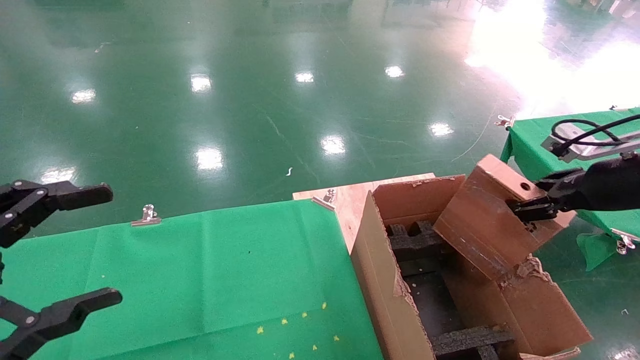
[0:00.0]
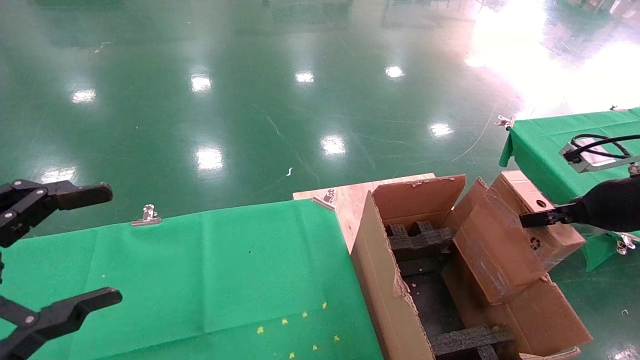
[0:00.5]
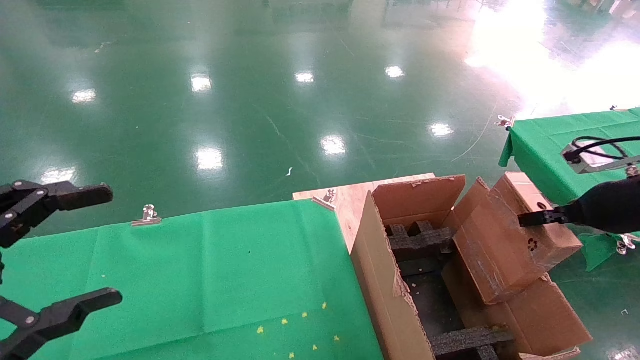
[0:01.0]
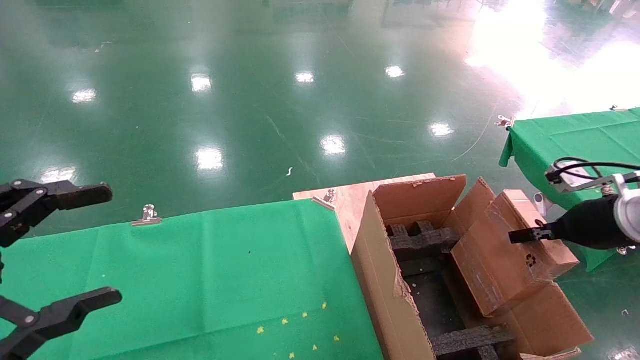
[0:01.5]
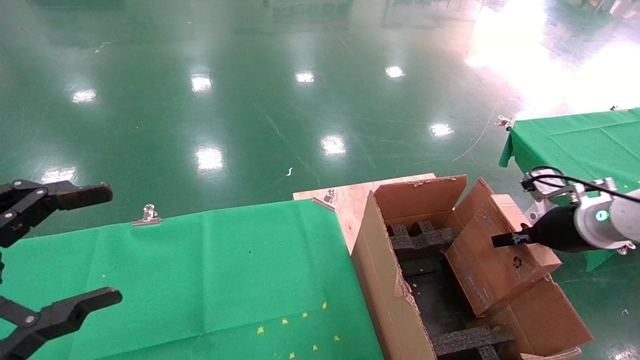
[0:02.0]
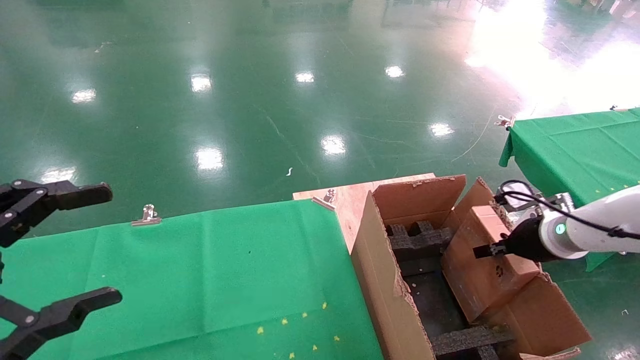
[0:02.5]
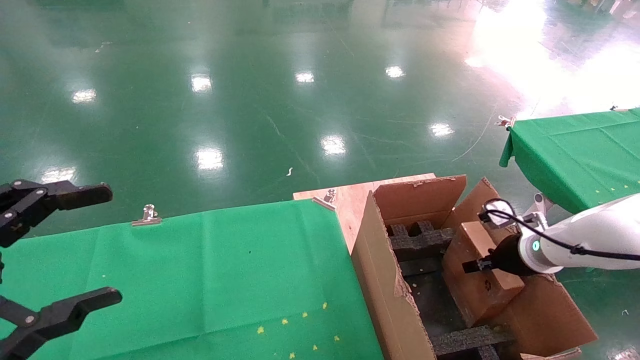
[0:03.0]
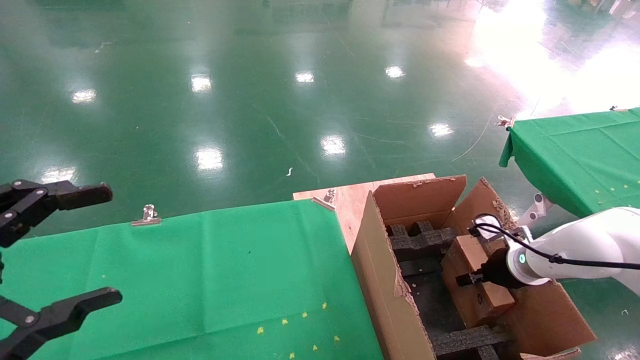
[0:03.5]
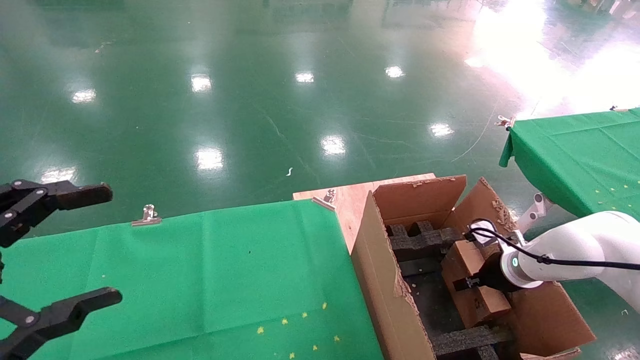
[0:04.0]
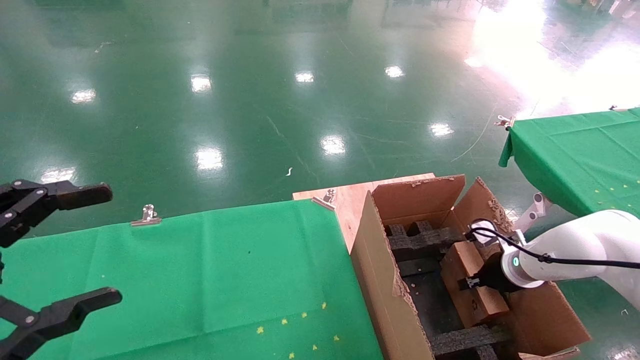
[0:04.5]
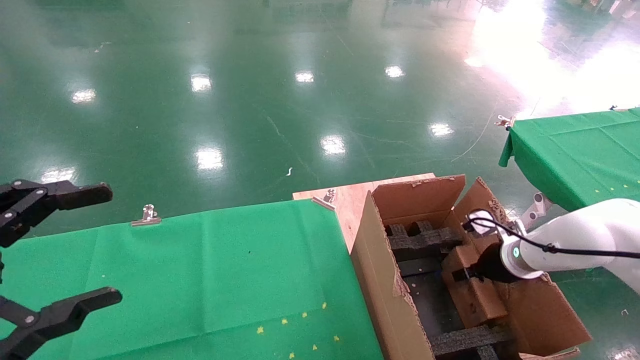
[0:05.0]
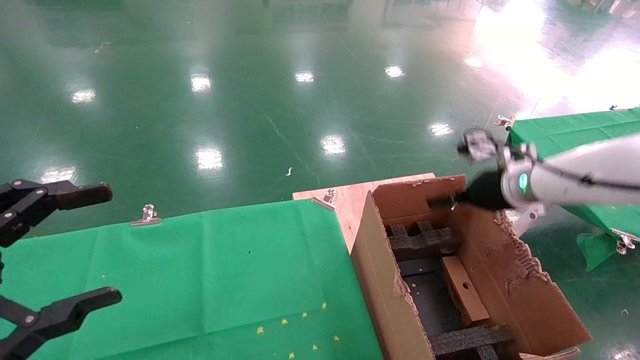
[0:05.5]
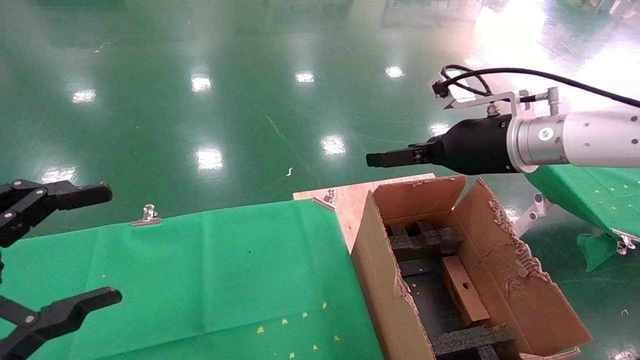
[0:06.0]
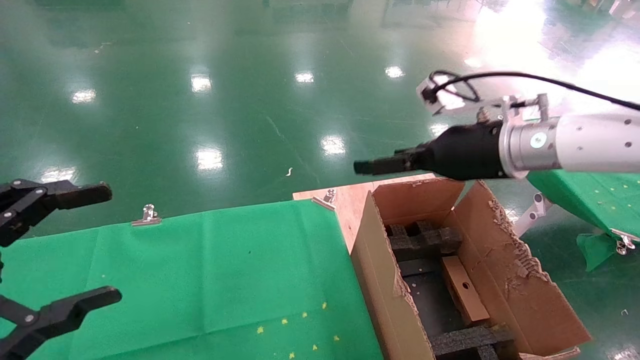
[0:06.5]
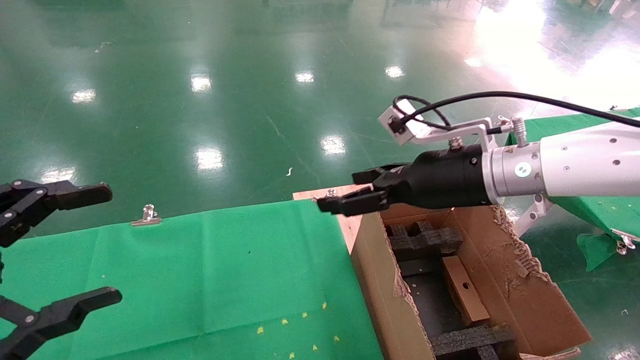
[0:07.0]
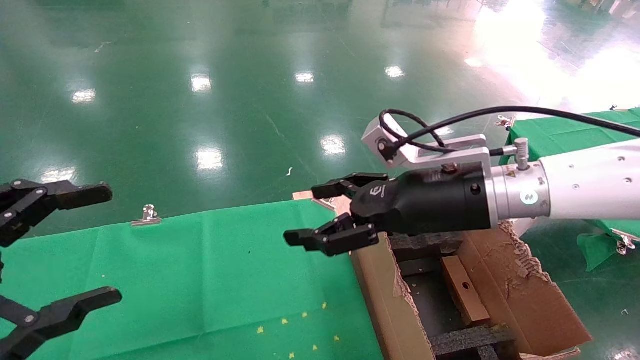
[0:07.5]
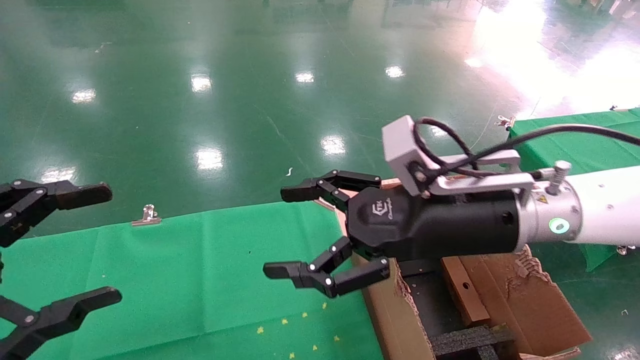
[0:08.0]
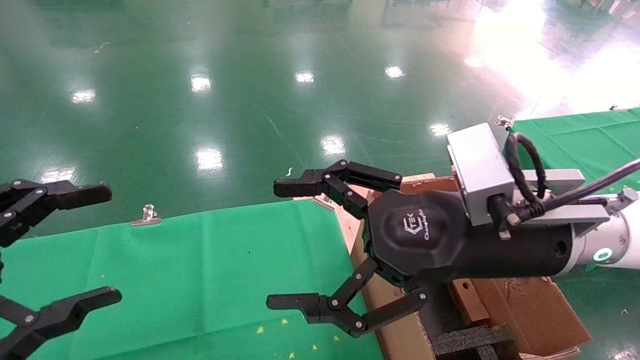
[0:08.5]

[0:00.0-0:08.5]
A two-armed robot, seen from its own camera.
Task of the whole recording: using a robotic arm to pick up a cardboard box and palace it the carton.
Step, 0:00.0 to 0:05.5: Place the mouse and the power cord paper box into the container.
0:00.0 to 0:02.0: The right gripper is displaced downward by some 10 cm.
0:02.0 to 0:04.0: The right gripper goes some 15 cm downward and forward.
0:04.0 to 0:06.5: The right gripper travels upward and to the left by approximately 25 cm, and opens its fingers.
0:06.5 to 0:08.5: The right gripper heads backward and to the left, covering roughly 15 cm.

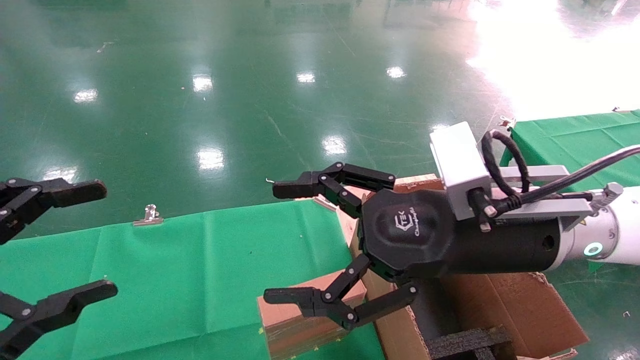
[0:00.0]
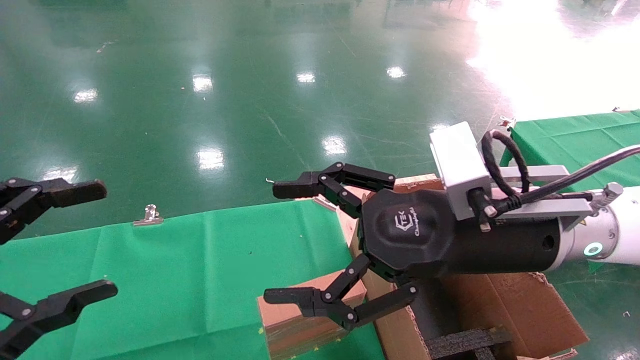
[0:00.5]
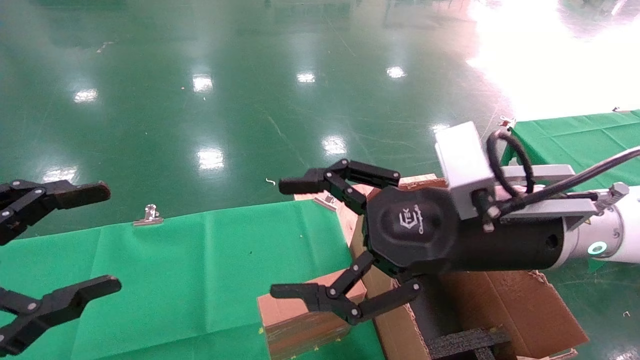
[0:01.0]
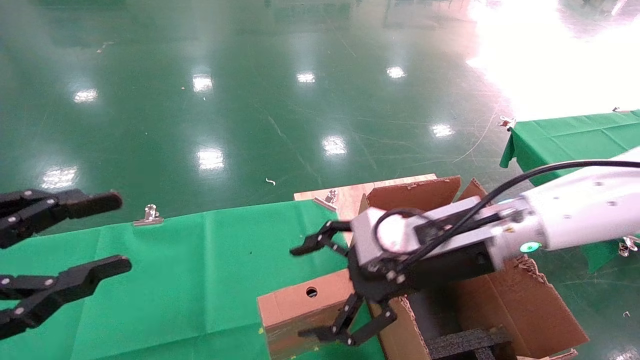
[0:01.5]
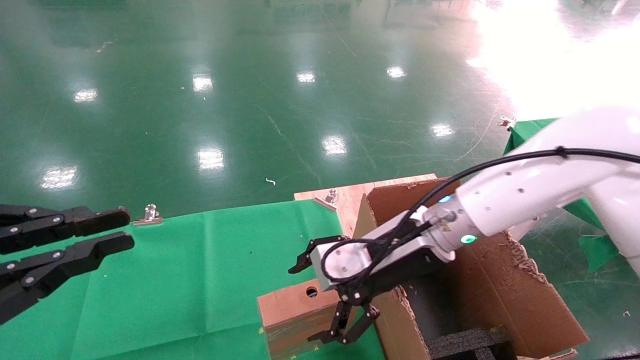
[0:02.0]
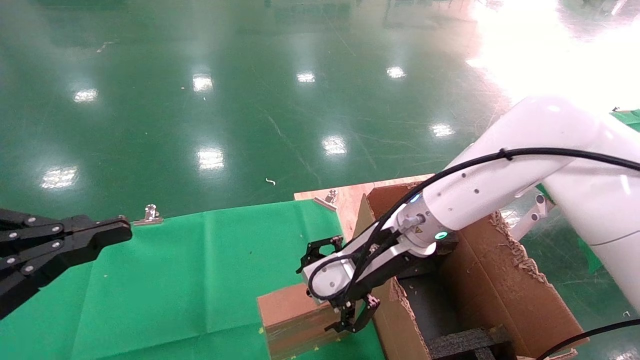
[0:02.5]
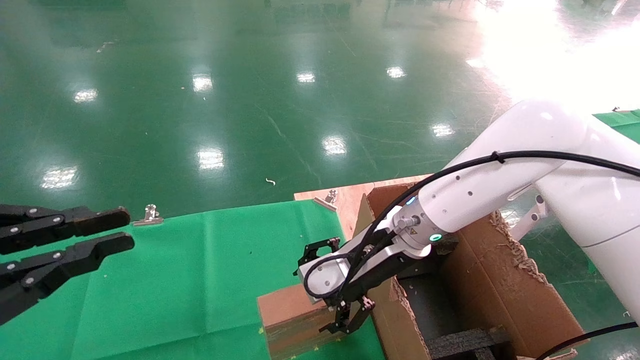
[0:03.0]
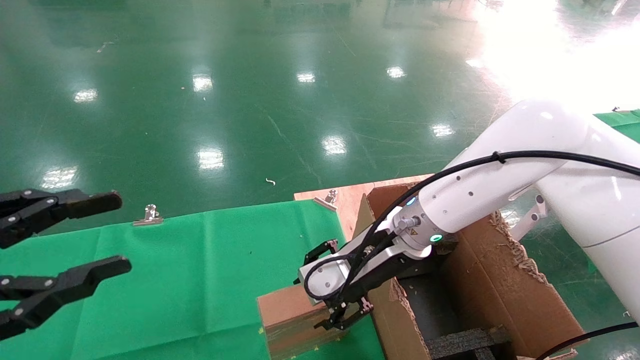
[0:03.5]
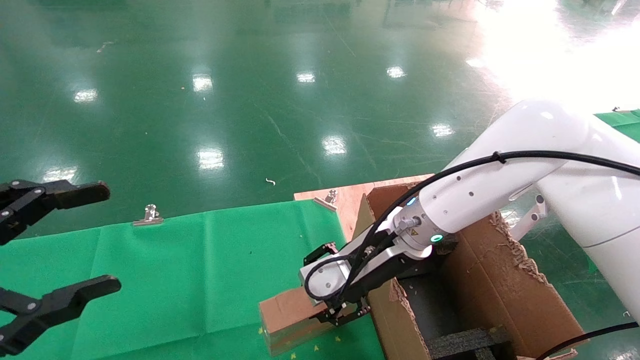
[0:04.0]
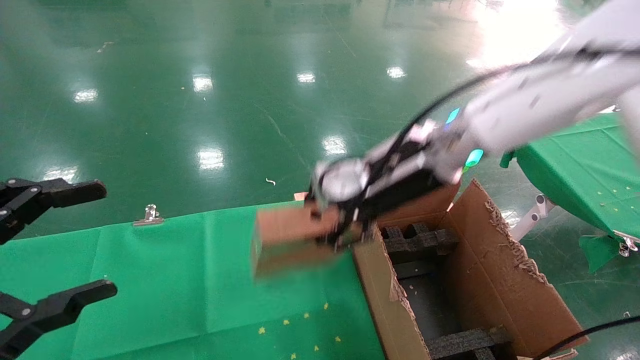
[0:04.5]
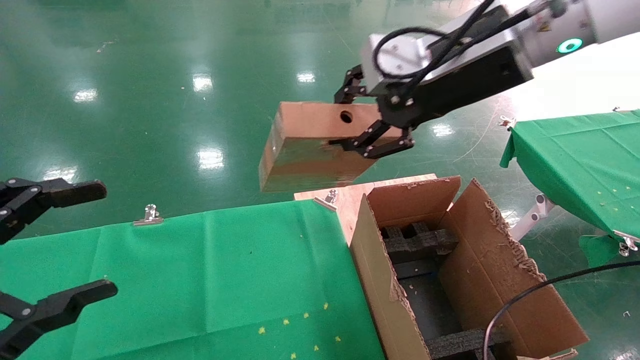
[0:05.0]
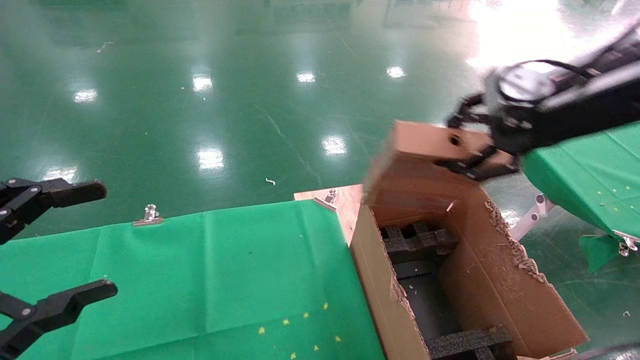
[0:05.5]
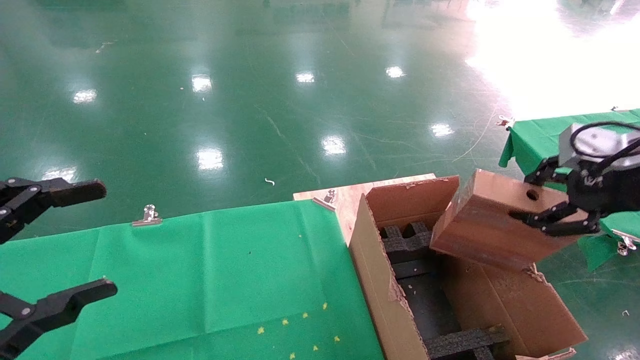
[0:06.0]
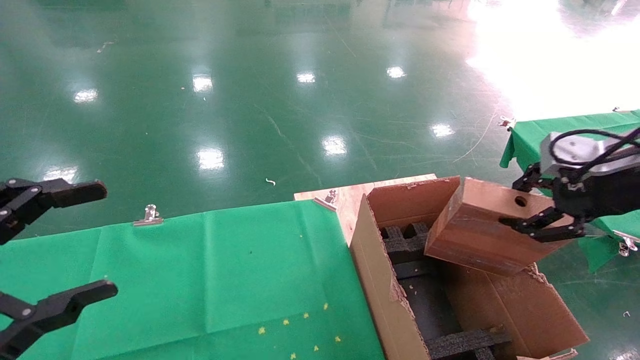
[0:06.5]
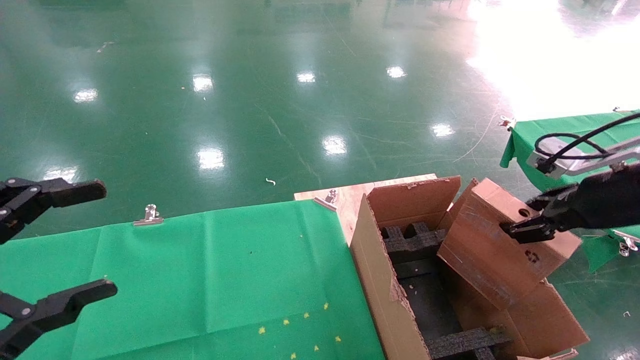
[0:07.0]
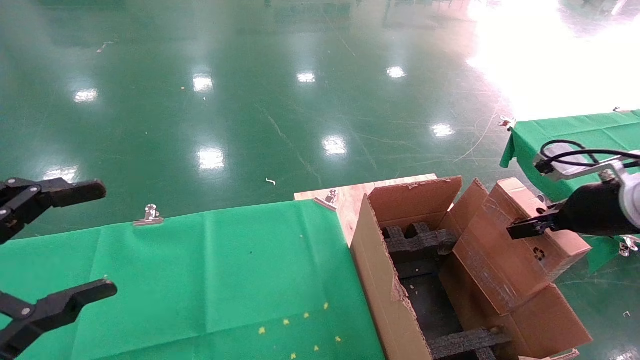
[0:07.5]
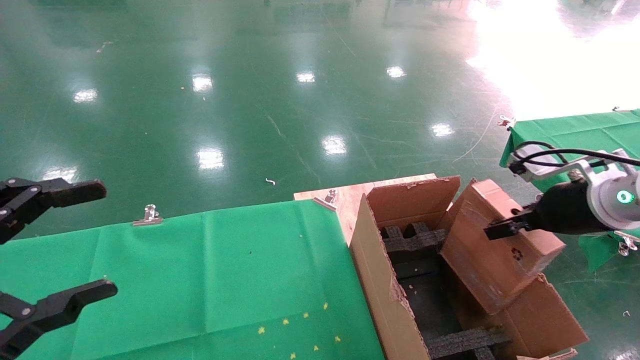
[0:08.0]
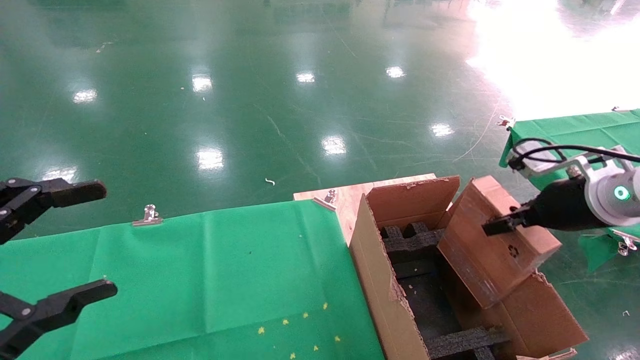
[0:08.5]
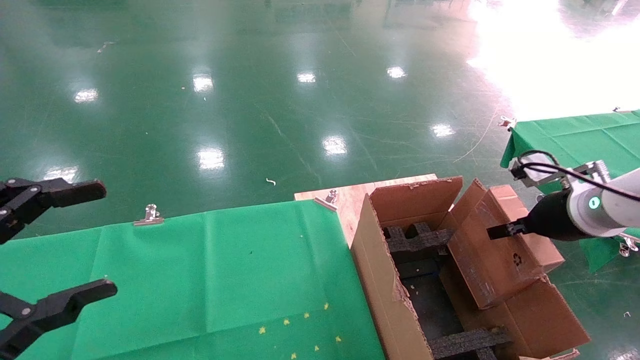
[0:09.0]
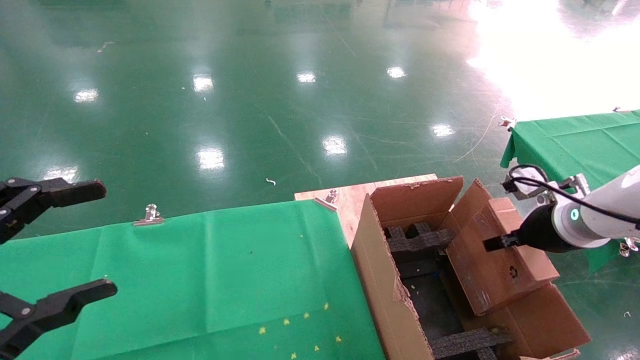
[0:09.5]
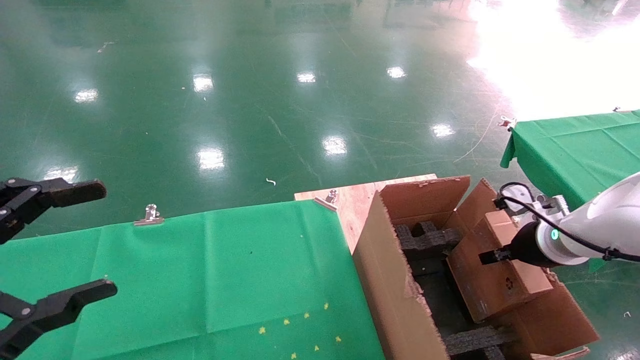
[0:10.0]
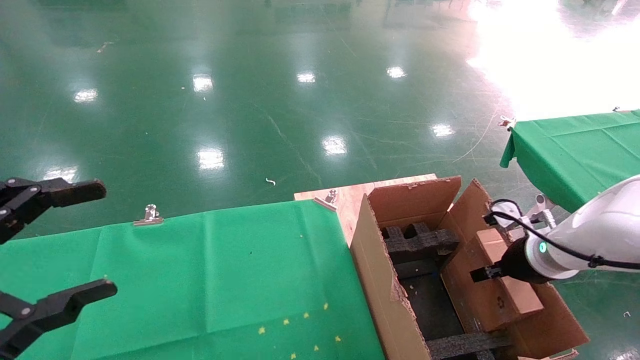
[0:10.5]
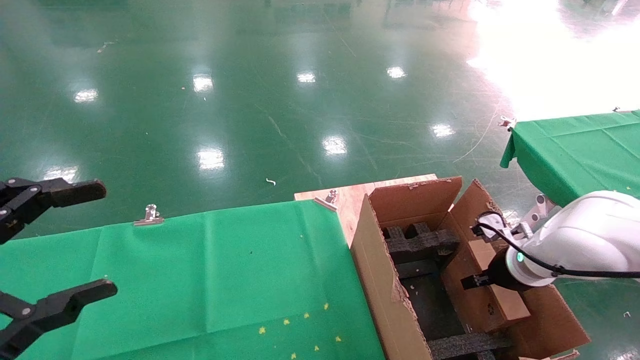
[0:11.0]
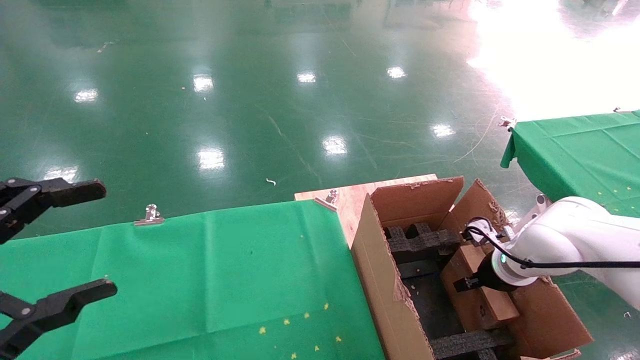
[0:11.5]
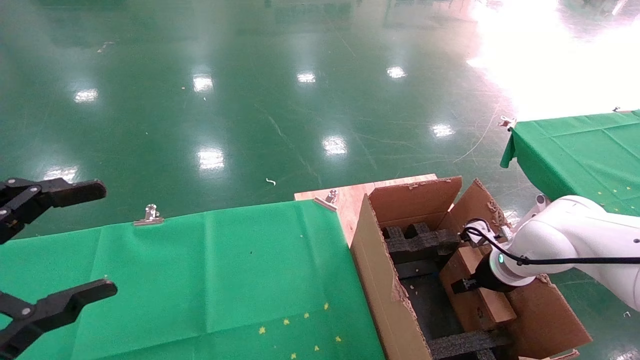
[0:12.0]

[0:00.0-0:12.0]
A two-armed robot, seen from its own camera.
Task of the whole recording: using a robotic arm to pick up a cardboard box and palace it the carton.
Step, 0:01.5 to 0:03.5: Pick up the mouse and the power cord paper box.
0:00.0 to 0:02.0: The right gripper is displaced forward and downward by about 10 cm; the left gripper closes.
0:02.0 to 0:04.0: The right gripper closes its fingers, while the left gripper opens its fingers.
0:04.0 to 0:06.0: The right gripper heads to the right, upward and backward, covering approximately 30 cm.
0:06.0 to 0:08.0: The right gripper moves downward and forward, about 10 cm.
0:08.0 to 0:10.0: The right gripper heads downward, covering approximately 10 cm.
0:10.0 to 0:12.0: The right gripper goes approximately 10 cm downward and forward.
